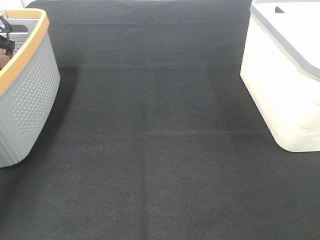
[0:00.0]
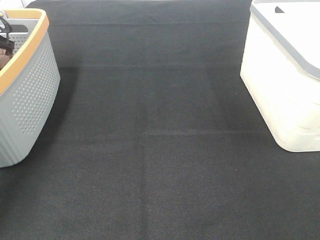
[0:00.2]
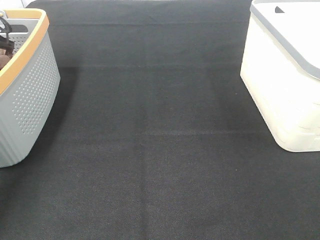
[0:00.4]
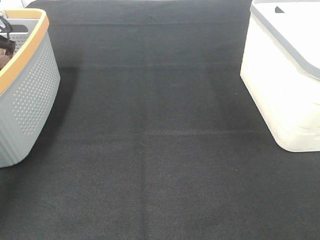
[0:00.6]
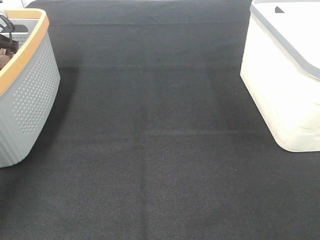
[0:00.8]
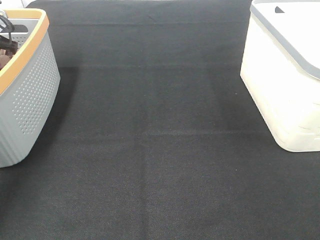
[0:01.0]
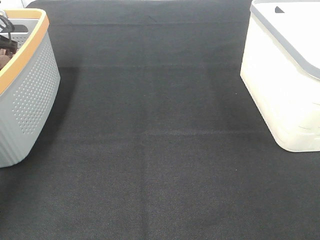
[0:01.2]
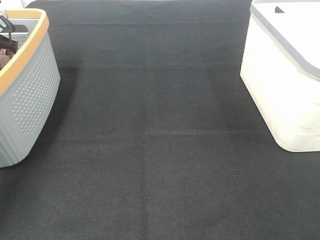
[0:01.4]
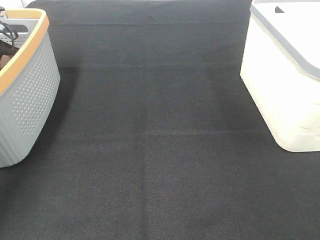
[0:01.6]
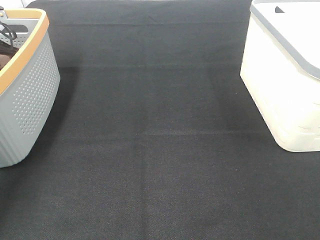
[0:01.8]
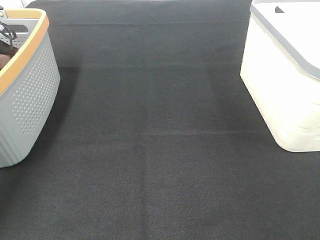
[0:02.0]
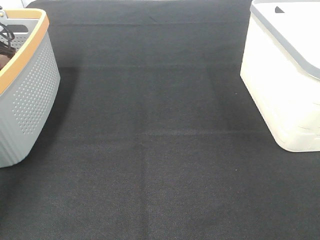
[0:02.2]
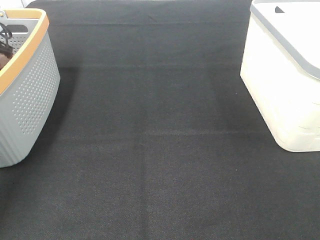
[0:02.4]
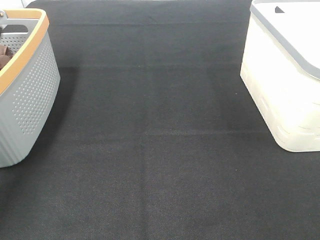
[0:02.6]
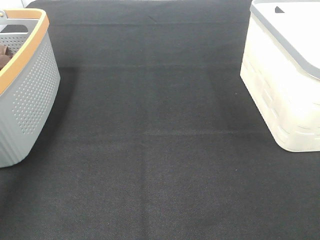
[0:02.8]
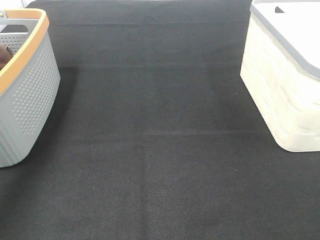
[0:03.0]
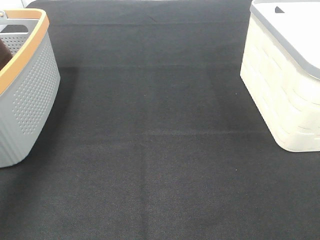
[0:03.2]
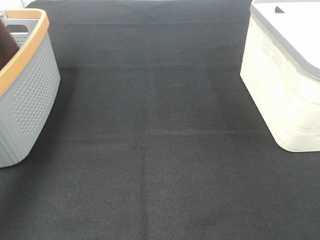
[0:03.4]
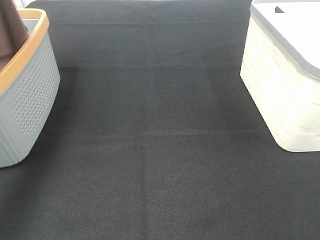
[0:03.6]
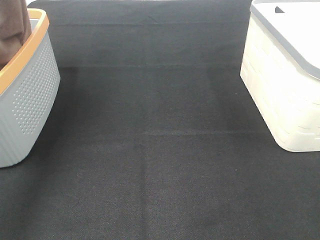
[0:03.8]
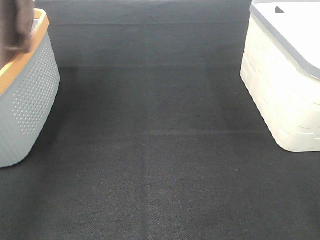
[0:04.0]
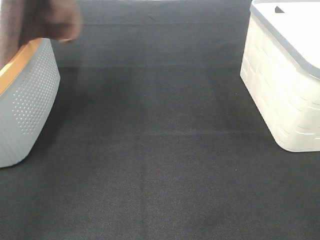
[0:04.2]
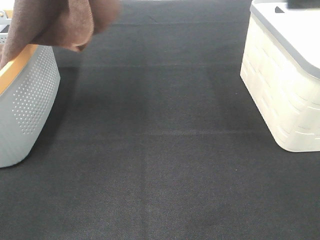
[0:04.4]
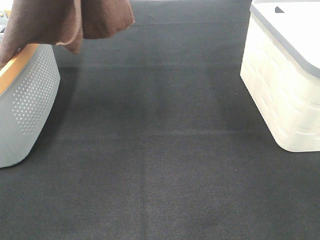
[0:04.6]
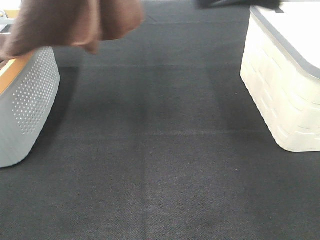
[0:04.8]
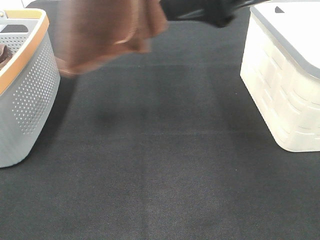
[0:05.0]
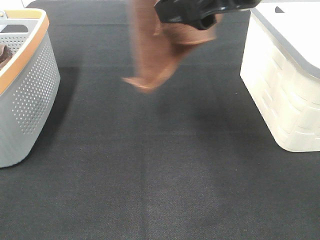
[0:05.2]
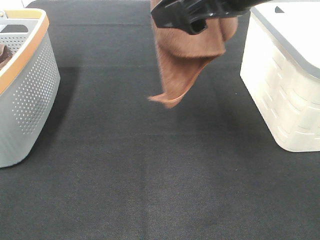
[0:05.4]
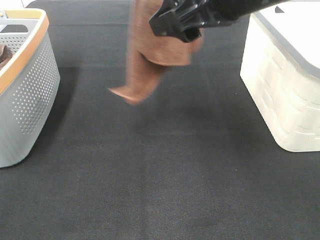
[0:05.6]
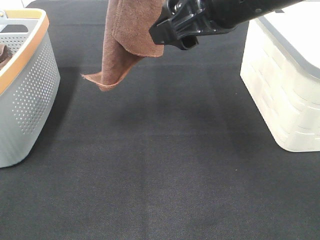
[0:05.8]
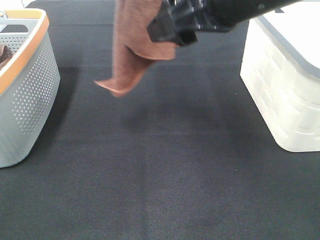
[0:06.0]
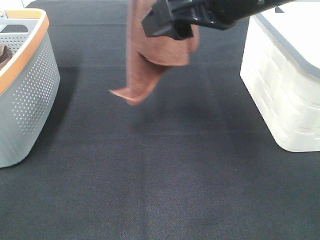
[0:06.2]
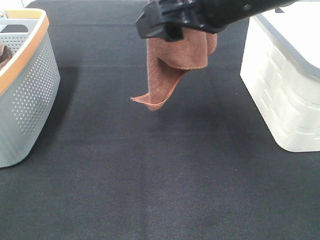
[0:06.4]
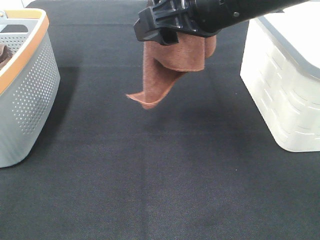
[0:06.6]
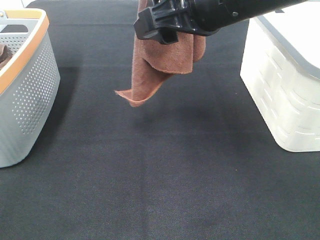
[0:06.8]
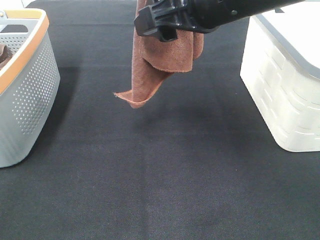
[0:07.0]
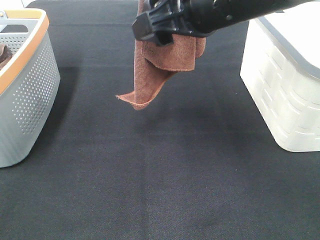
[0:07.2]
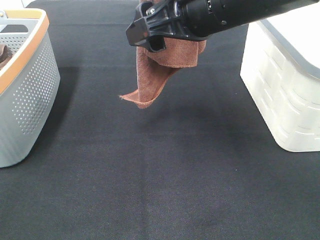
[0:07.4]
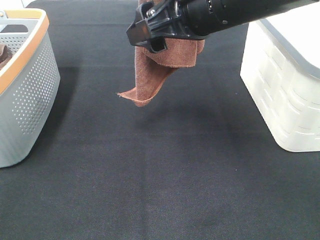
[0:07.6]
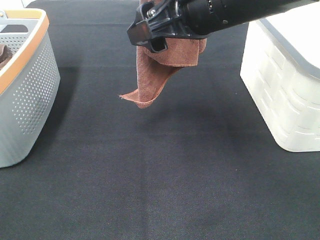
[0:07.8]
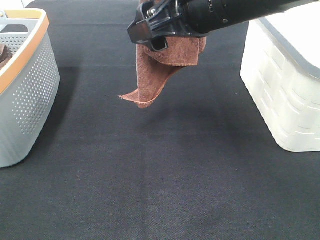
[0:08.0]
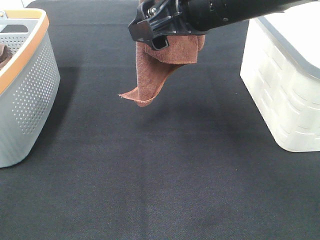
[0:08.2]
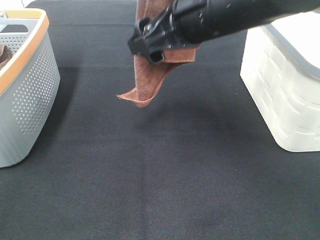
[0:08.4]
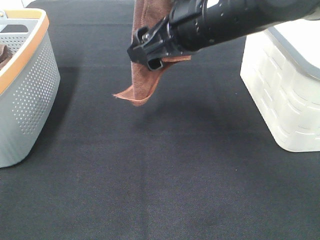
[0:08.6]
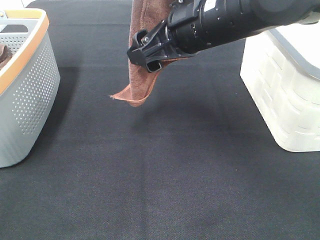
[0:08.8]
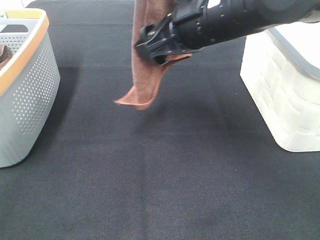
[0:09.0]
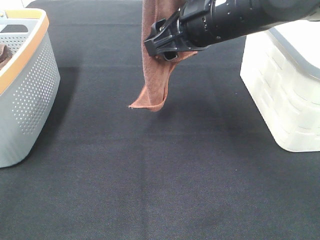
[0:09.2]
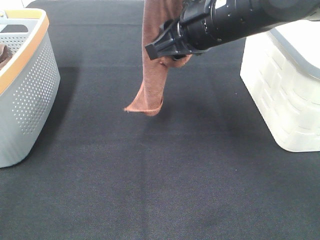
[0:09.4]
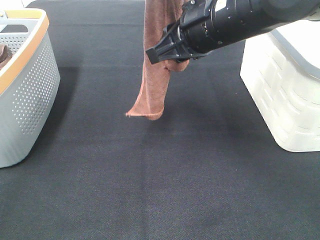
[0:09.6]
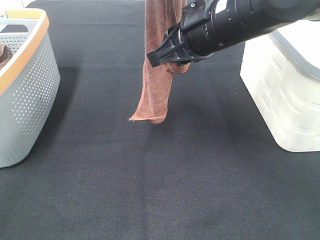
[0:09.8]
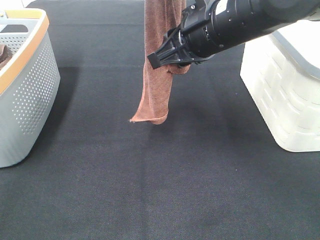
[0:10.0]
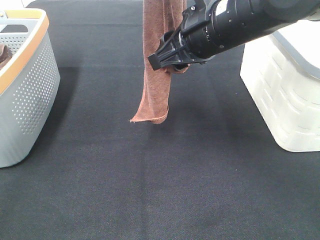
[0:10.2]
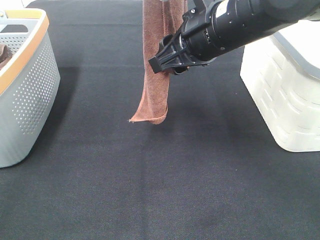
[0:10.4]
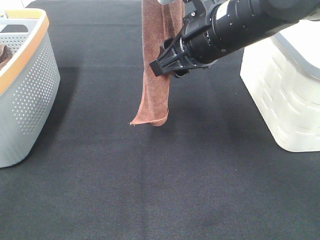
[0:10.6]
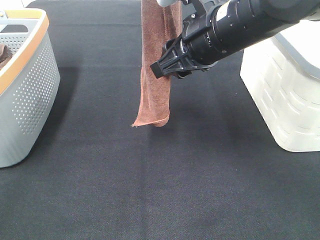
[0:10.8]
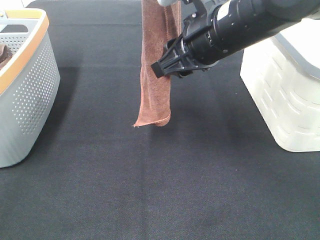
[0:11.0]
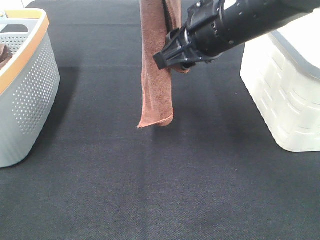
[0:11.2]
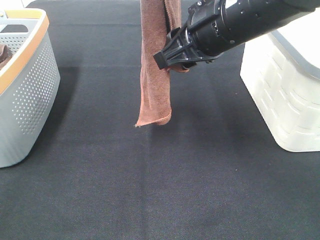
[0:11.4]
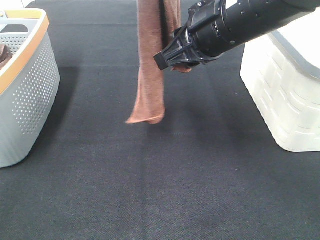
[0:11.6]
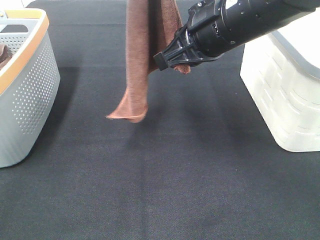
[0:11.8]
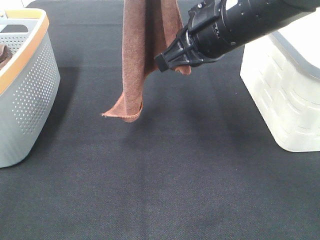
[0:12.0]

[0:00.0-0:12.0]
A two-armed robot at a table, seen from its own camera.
Task of the whole recording: Remove the towel and place it.
Step, 0:03.0 to 0:09.4: Right hand: grab a corner of the brown towel and straighten it.
Step, 0:09.6 to 0:11.6: Left hand: spread the brown towel flat on the table.
Step, 0:09.6 to 0:11.8: Right hand: spread the brown towel flat on the table.
0:01.6 to 0:03.0: The left gripper is displaced upward and backward by roughly 20 cm, and closes.
0:03.0 to 0:04.4: The right gripper travels forward, upward and to the left by some 20 cm, while the left gripper travels to the right, upward and backward by some 20 cm.
0:04.4 to 0:06.0: The right gripper travels to the left, forward and downward by about 15 cm. Meanwhile the left gripper moves to the right, approximately 10 cm.
0:06.0 to 0:07.6: There are only small adjustments of the grippers.
0:07.6 to 0:10.4: There are only small adjustments of the grippers.
0:10.4 to 0:12.0: The right gripper closes.

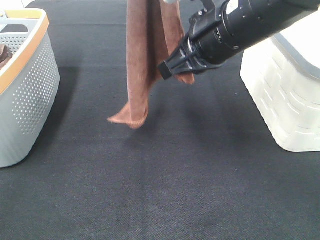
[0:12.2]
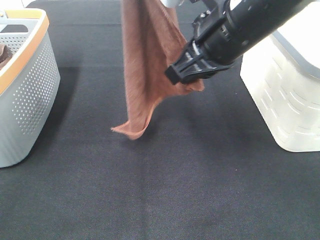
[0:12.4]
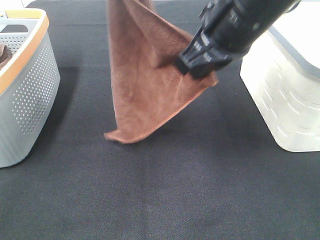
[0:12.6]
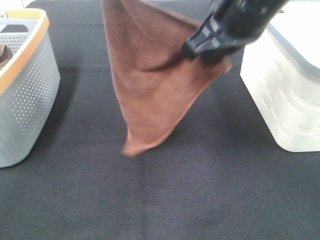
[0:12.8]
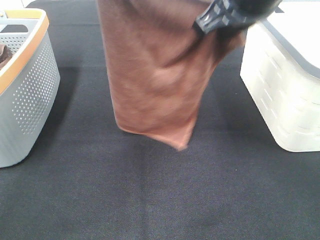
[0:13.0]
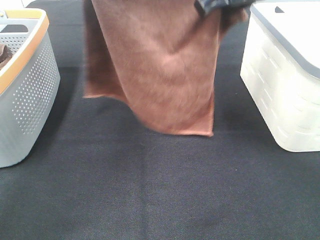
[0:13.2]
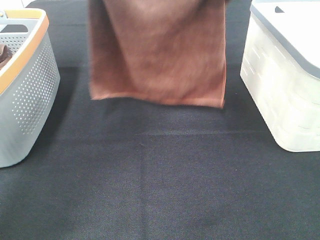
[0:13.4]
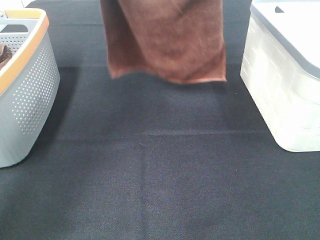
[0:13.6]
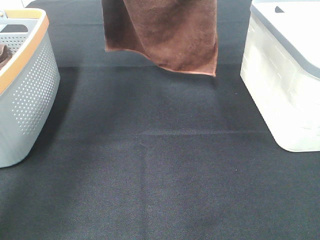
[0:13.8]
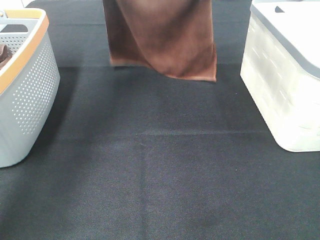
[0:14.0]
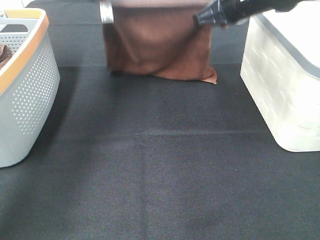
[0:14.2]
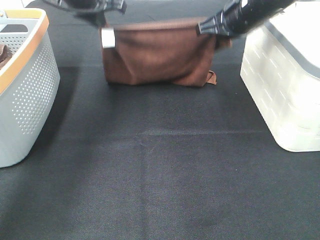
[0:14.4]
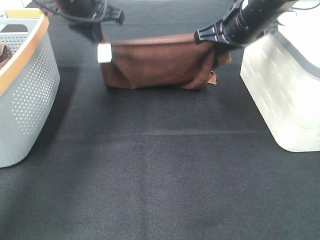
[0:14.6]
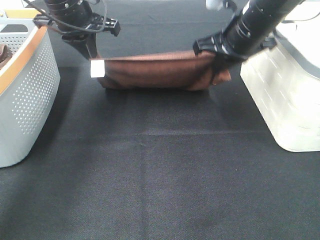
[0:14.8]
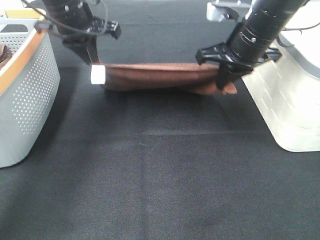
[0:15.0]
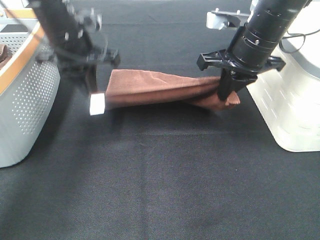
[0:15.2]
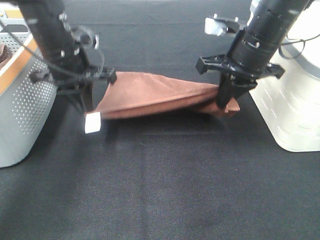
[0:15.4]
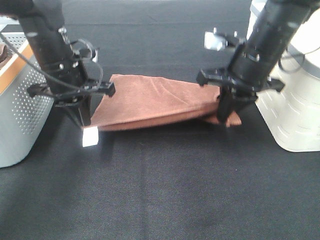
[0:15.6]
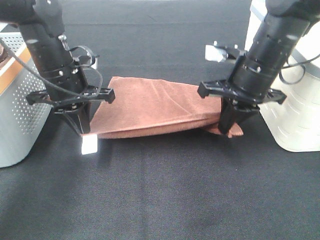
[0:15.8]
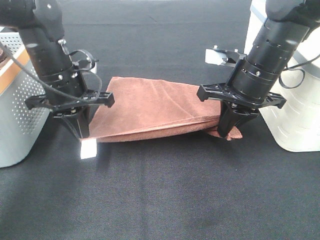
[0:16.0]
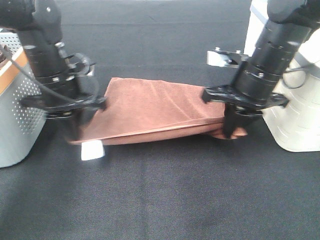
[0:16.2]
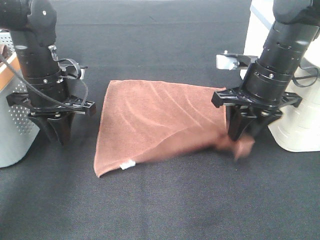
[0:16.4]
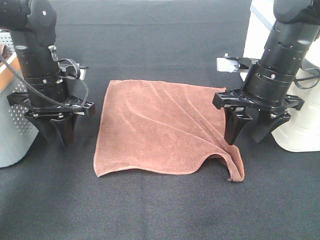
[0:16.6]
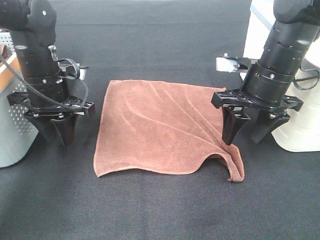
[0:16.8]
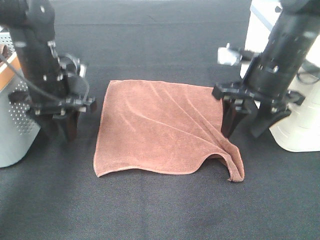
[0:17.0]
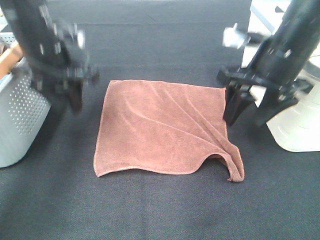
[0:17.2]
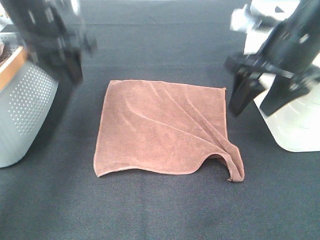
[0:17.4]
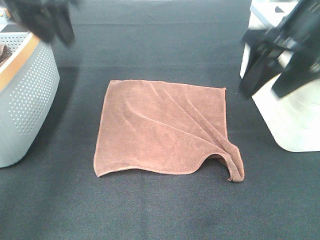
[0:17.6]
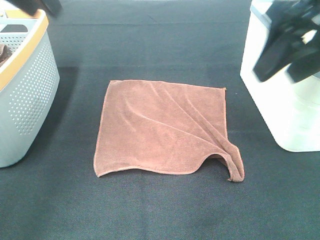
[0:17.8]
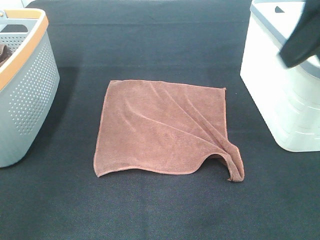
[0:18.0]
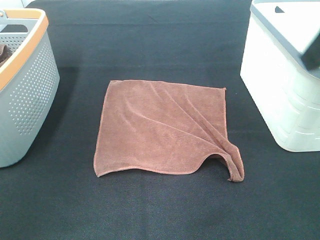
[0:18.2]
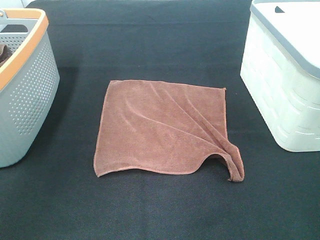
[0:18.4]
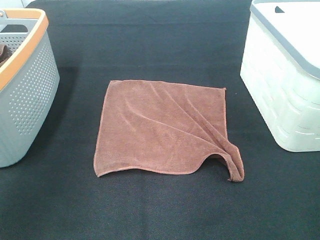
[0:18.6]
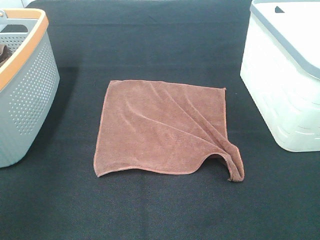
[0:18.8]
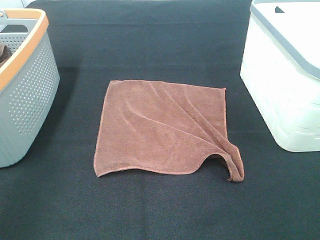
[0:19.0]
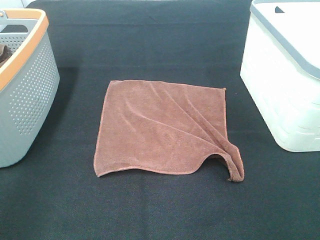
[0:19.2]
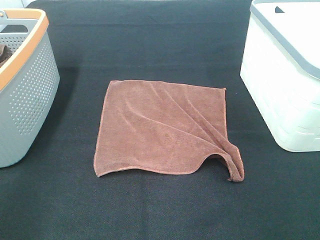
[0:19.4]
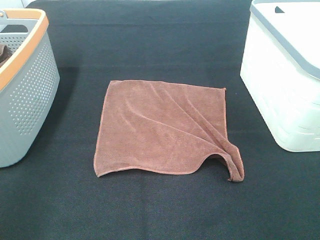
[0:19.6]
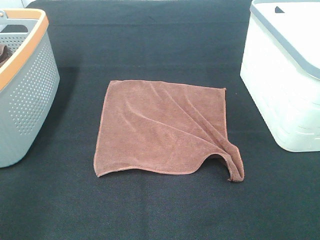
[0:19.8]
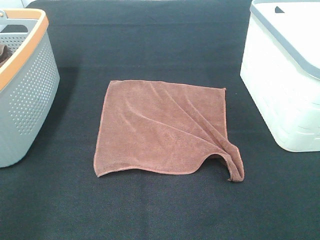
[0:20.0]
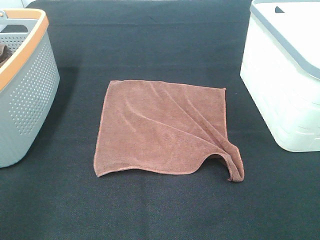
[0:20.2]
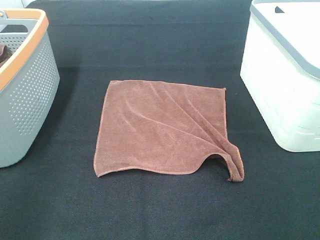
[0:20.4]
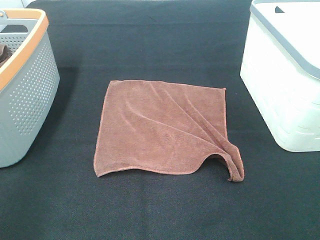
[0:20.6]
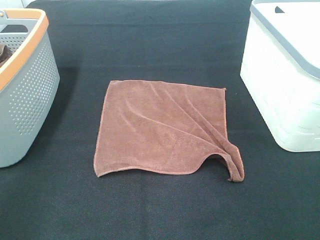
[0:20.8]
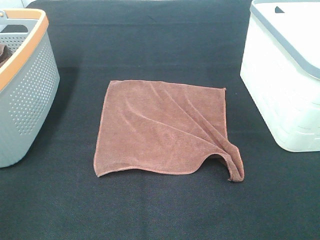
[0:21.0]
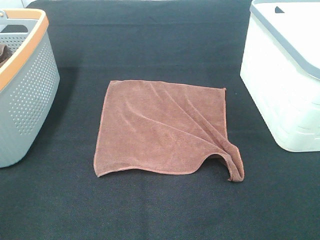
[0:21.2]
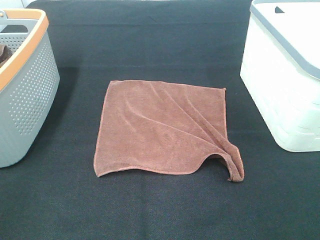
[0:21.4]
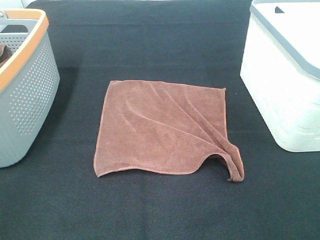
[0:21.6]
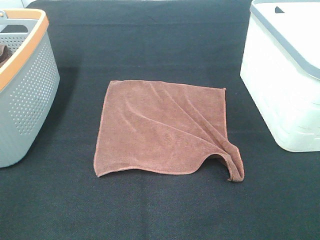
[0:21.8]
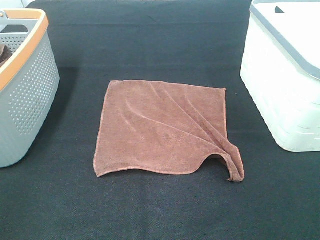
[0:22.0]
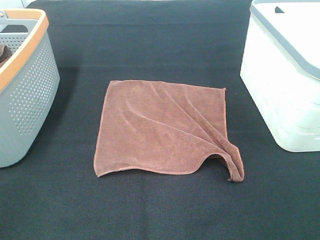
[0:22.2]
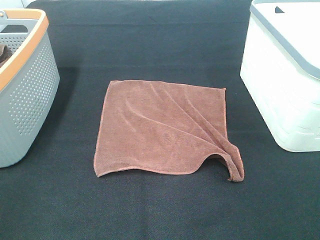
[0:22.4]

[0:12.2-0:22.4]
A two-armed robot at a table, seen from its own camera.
Task of the whole recording: Remove the towel and place it.
0:12.2 to 0:13.6: The right gripper moves forward, upward and to the right, about 15 cm. The left gripper goes about 20 cm forward, downward and to the left.
0:13.6 to 0:15.2: The left gripper shifts approximately 15 cm downward. Meanwhile the right gripper moves downward, approximately 10 cm.
0:15.2 to 0:16.6: The left gripper travels downward by approximately 5 cm, and opens up; the right gripper moves roughly 5 cm, and opens.
0:16.6 to 0:18.0: The right gripper moves upward and backward, some 20 cm, while the left gripper shifts about 25 cm upward.
0:18.0 to 0:19.4: The right gripper travels backward, downward and to the right by some 20 cm.
